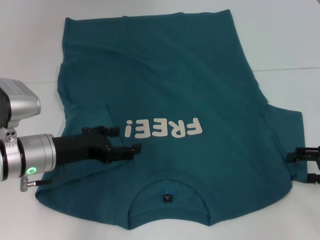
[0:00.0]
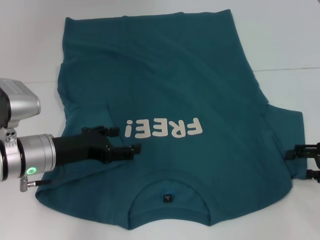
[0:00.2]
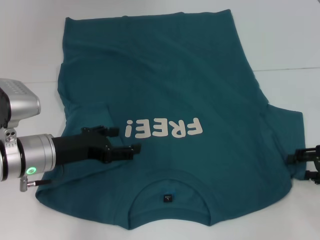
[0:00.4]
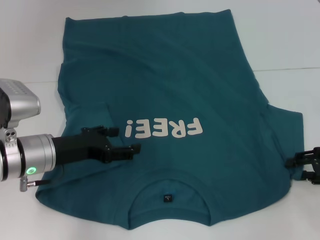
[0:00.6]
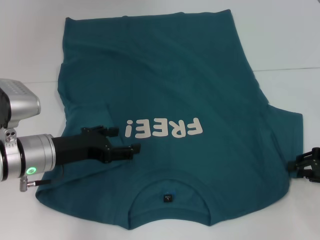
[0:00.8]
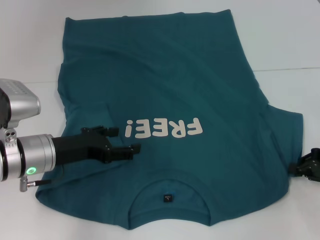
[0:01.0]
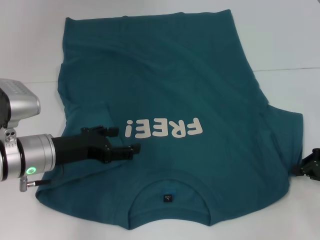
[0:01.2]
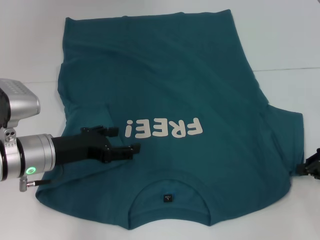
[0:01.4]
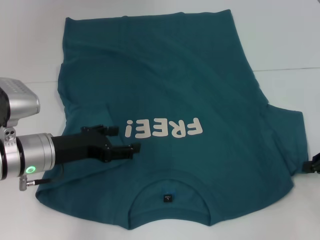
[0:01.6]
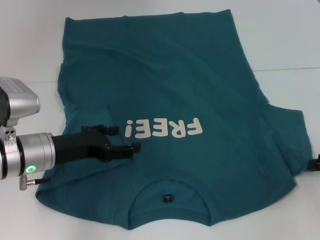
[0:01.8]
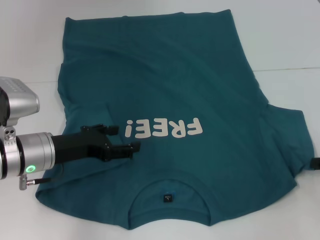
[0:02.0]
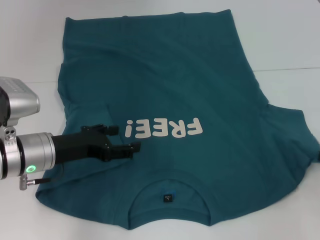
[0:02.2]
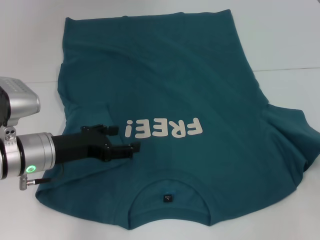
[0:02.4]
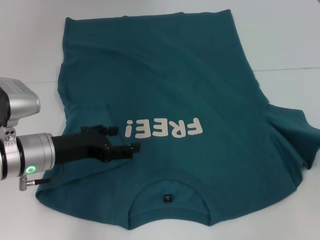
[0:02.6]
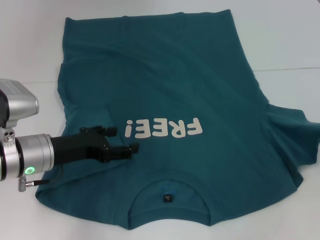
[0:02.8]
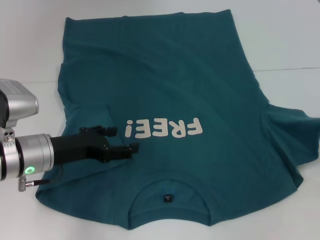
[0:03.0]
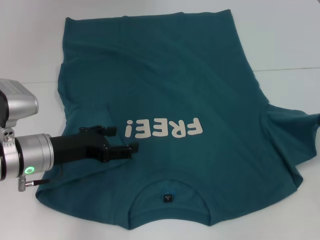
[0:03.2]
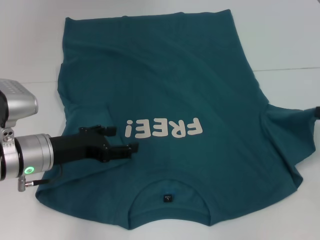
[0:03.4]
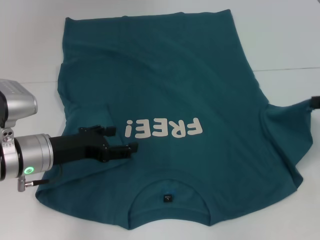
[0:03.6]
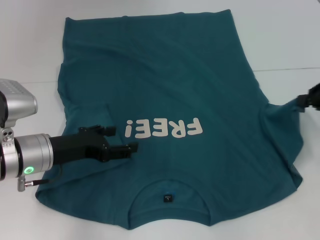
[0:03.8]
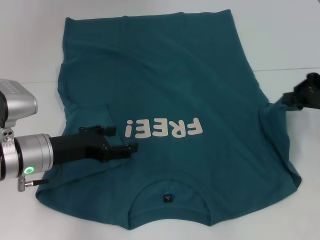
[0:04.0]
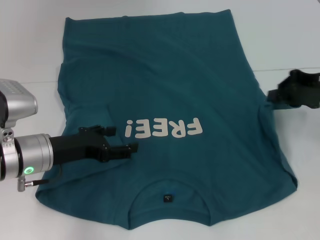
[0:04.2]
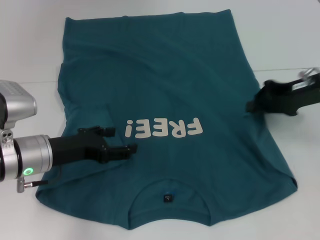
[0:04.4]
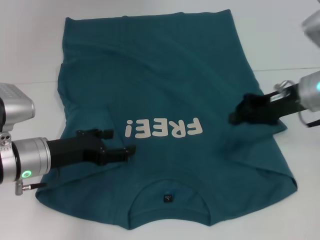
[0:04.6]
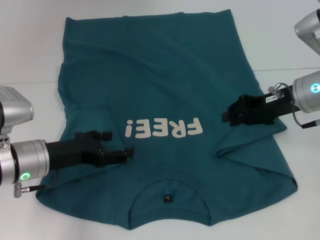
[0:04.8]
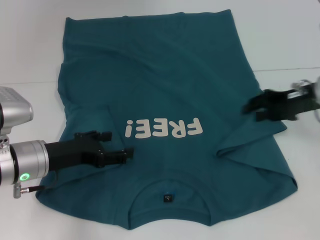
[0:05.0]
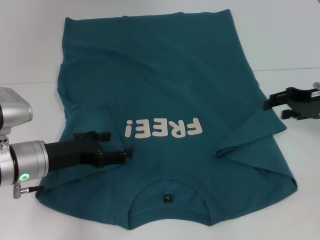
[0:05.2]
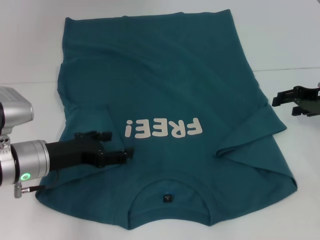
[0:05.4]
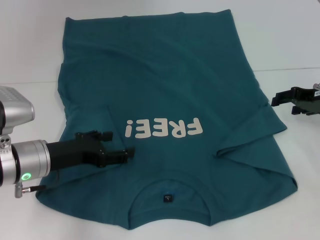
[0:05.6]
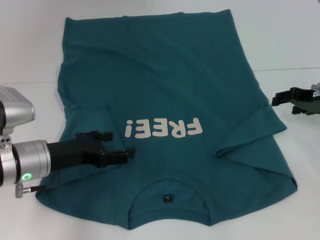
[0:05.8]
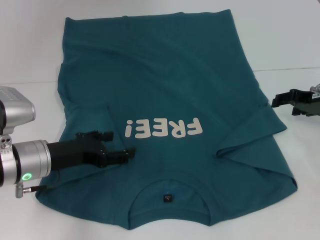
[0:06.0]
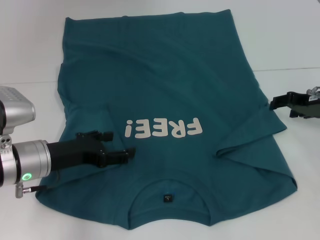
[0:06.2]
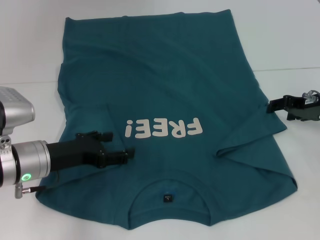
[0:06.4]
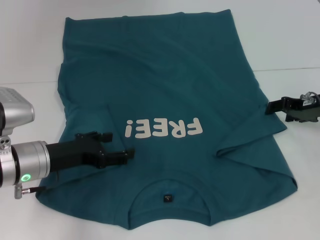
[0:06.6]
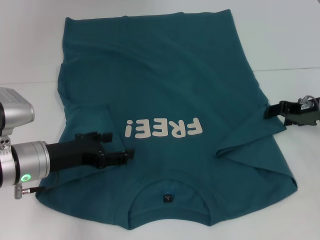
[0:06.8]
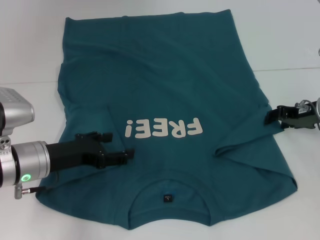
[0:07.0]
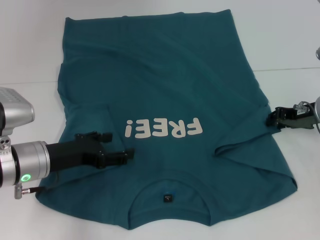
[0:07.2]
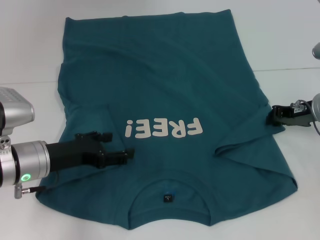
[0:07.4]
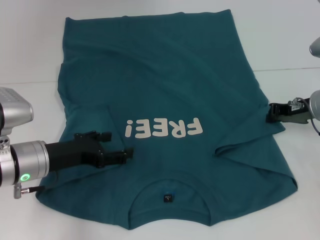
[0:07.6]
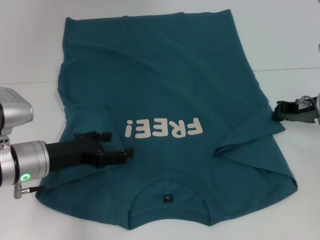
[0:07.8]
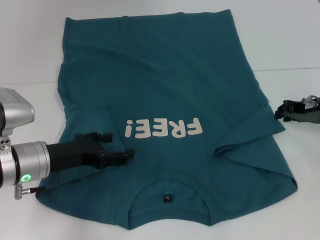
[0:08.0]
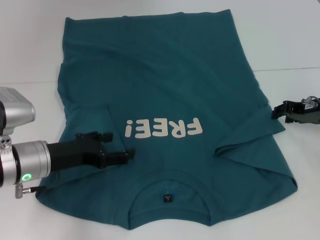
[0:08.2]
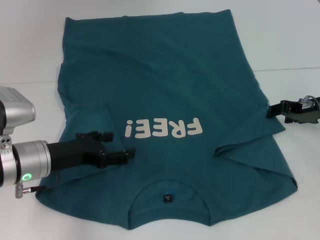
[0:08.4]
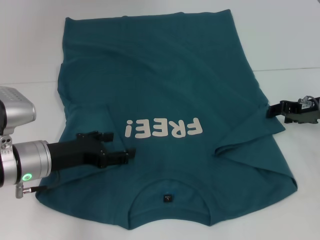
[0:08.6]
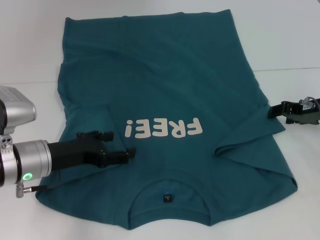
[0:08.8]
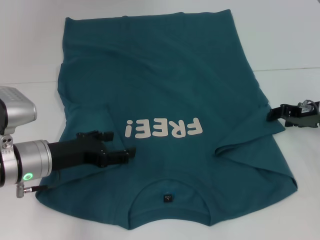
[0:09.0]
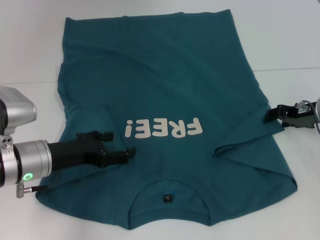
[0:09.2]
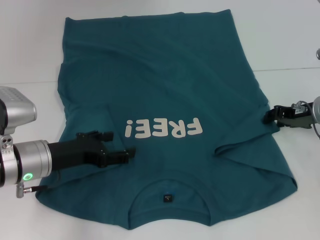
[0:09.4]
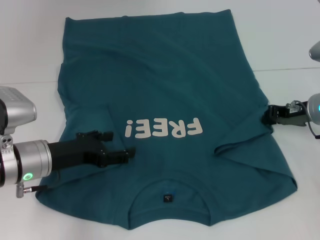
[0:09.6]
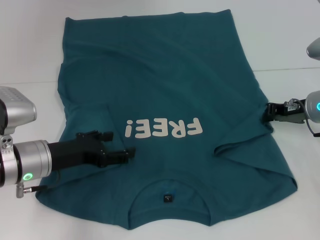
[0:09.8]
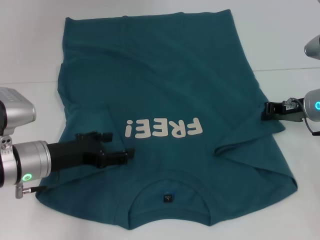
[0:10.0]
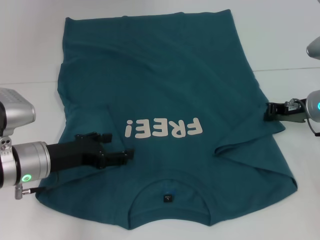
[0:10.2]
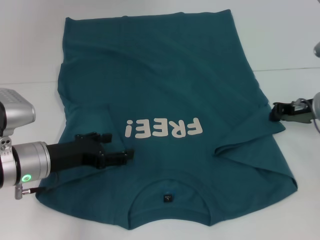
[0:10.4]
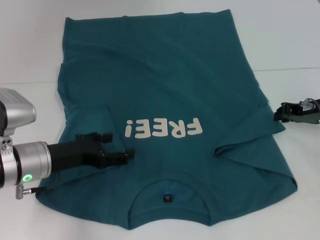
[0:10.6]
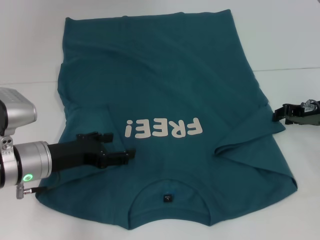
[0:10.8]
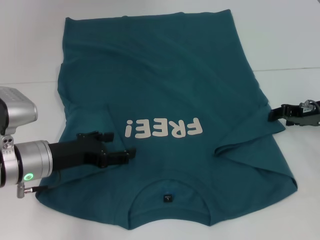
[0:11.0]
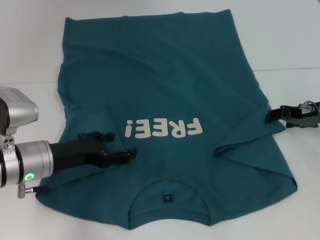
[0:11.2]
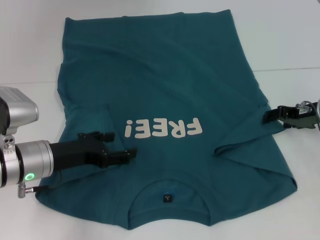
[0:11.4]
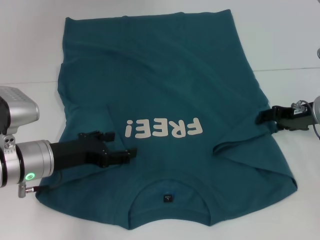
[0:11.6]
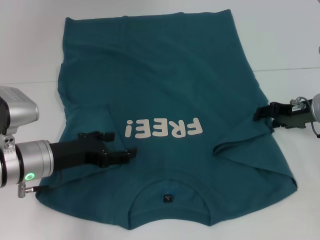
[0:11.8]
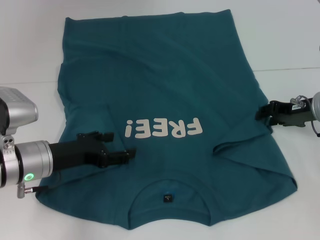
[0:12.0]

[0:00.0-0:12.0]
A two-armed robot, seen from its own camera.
0:00.0 to 0:01.6: The right gripper closes.
0:01.6 to 0:03.0: The right gripper heads upward, covering about 5 cm.
0:03.0 to 0:04.4: The right gripper travels to the left and forward by some 15 cm.
0:04.4 to 0:06.0: The right gripper heads downward, covering about 5 cm, and opens its fingers.
0:06.0 to 0:07.6: The right gripper closes its fingers.
0:07.6 to 0:09.0: The right gripper opens up.
0:09.0 to 0:10.4: The right gripper closes up.
0:10.4 to 0:12.0: The right gripper opens.

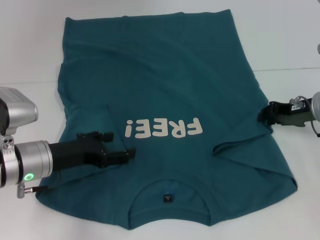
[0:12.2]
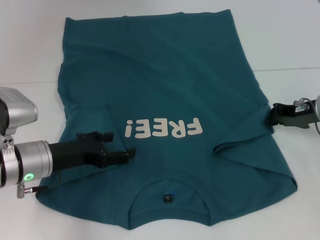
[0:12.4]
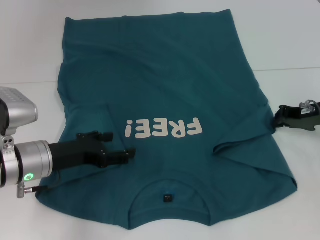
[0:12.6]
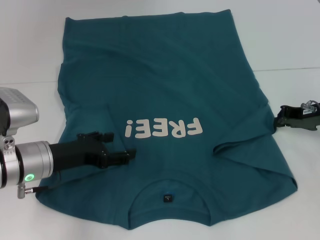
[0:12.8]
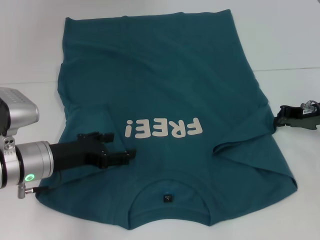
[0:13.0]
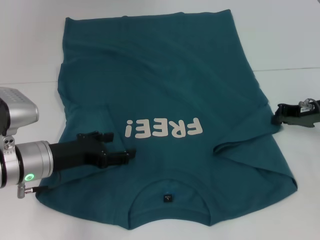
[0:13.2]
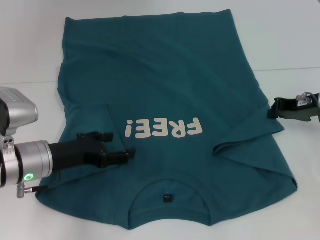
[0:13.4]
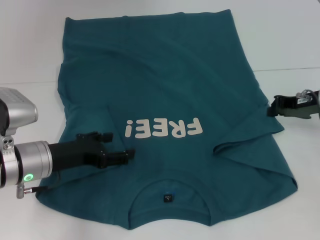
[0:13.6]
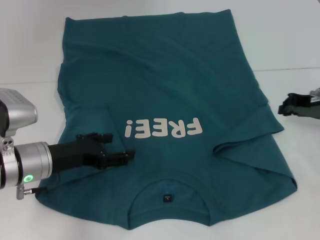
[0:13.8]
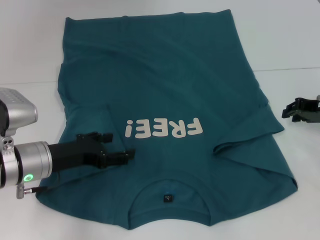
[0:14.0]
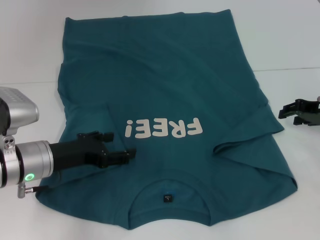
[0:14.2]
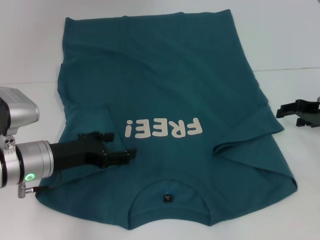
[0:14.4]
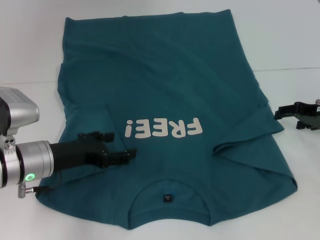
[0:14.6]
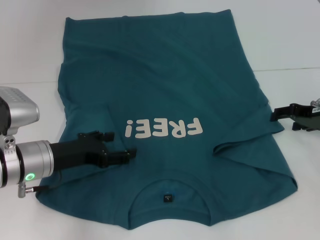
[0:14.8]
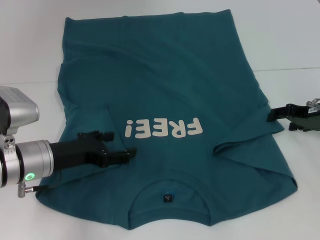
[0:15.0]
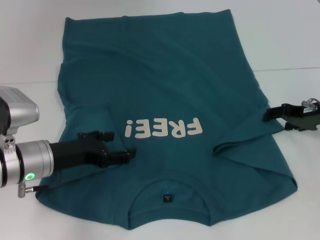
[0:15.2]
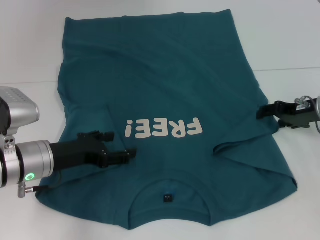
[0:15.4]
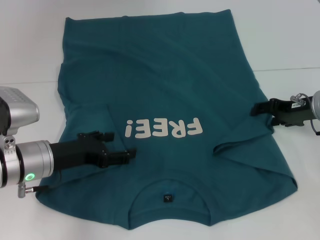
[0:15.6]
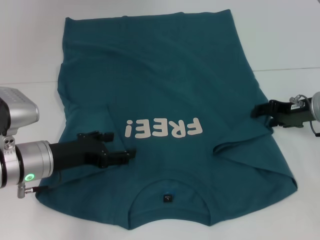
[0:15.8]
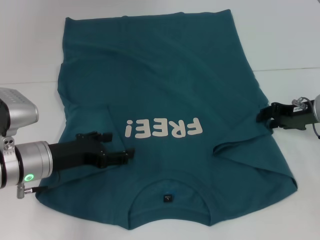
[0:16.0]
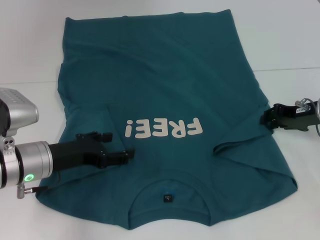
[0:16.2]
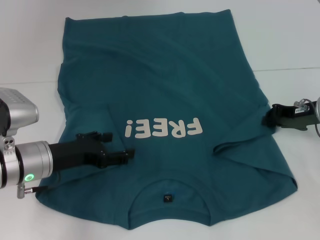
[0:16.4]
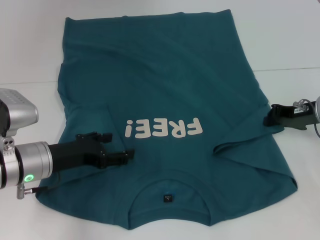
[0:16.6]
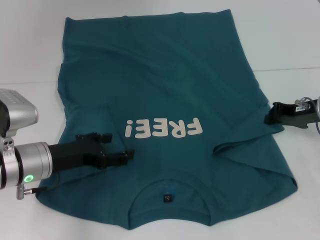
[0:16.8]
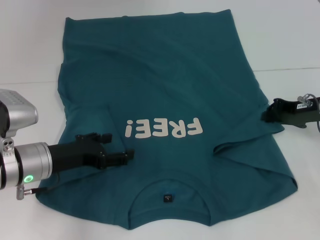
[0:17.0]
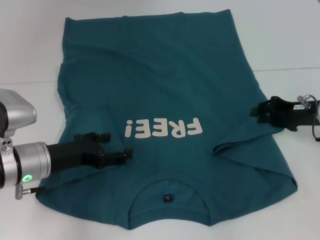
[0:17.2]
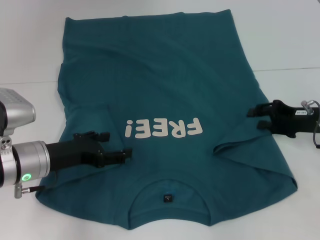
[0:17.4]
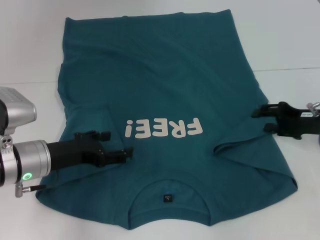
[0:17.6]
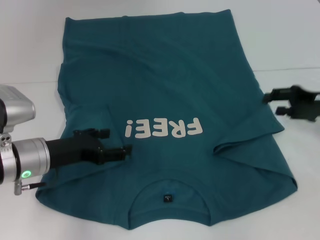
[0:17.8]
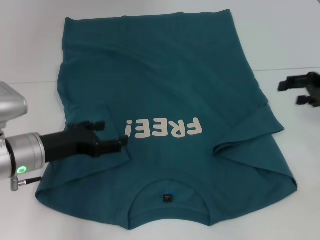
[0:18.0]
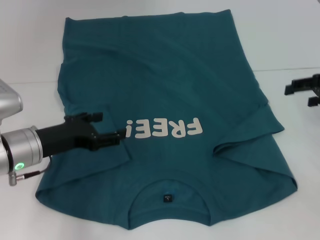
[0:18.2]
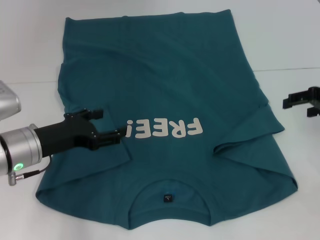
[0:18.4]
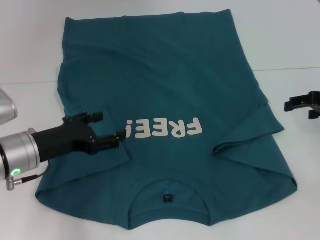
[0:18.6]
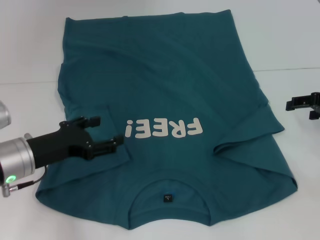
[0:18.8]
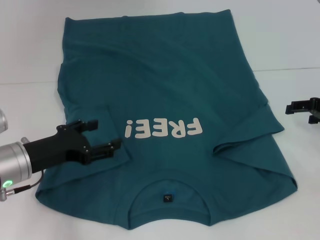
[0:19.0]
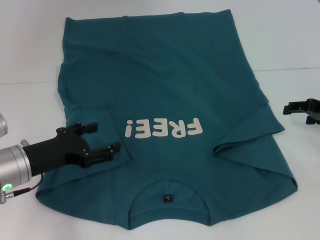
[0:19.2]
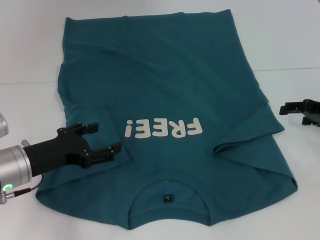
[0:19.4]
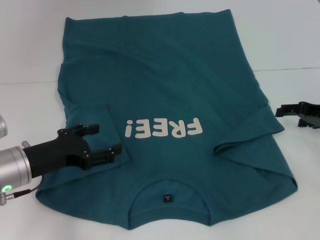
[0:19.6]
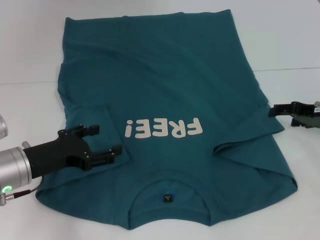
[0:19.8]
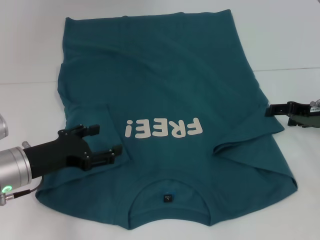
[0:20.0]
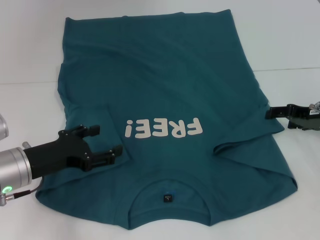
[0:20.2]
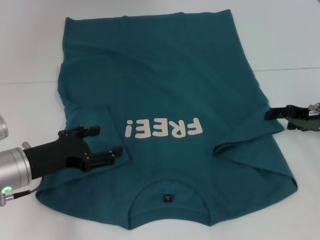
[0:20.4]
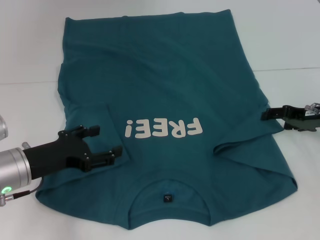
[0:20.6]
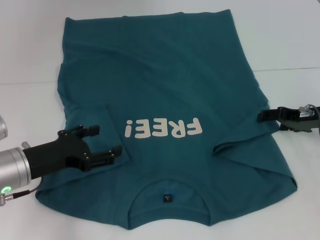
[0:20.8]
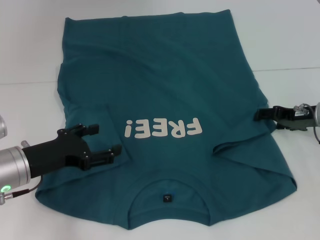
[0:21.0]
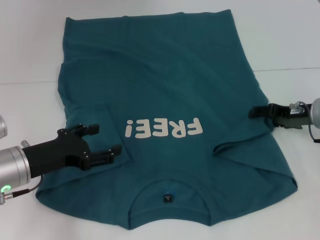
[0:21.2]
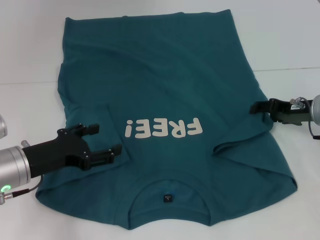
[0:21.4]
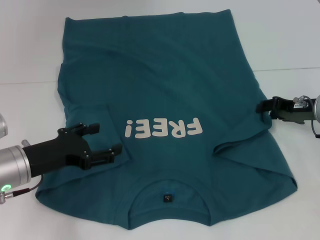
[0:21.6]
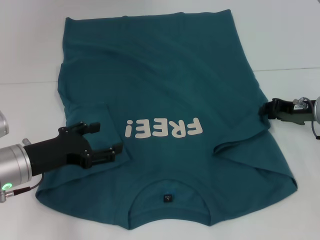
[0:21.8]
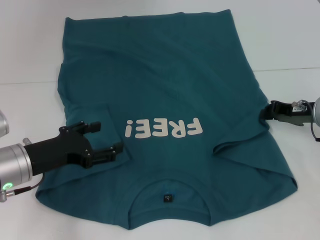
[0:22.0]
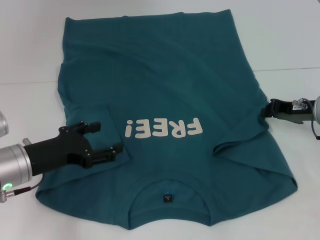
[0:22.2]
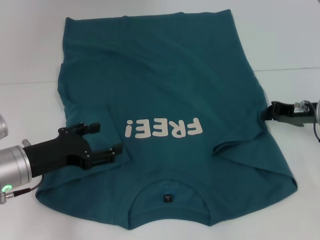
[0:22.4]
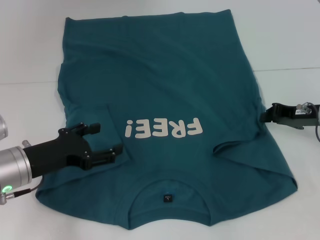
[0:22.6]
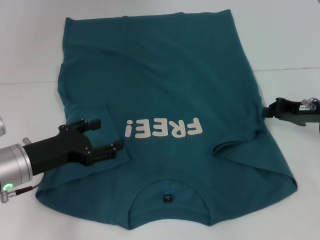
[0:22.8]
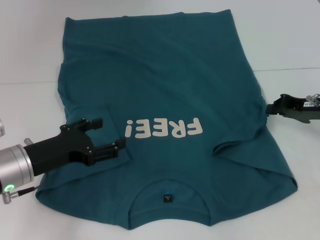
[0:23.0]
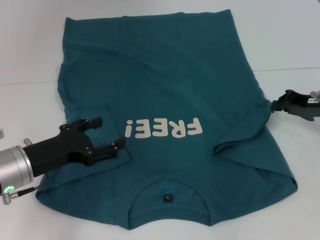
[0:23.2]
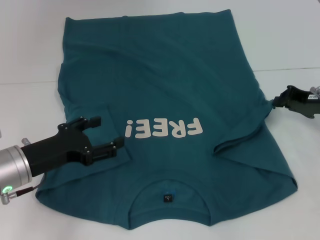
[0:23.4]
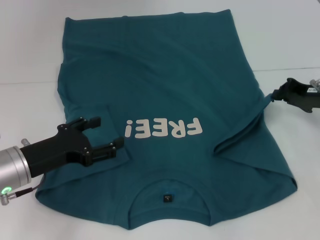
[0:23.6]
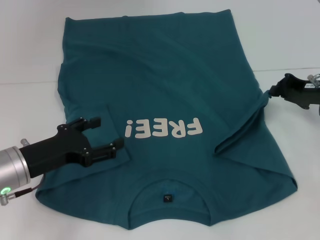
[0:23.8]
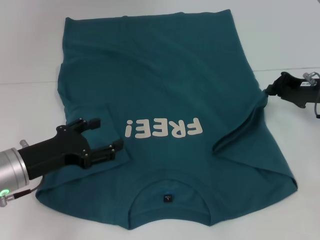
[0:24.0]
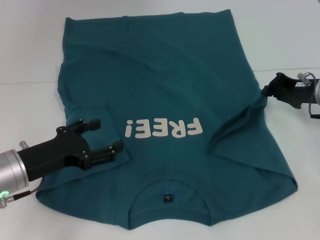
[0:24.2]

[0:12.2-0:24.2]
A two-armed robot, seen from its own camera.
0:12.2 to 0:13.8: The right gripper closes its fingers.
0:13.8 to 0:15.2: The right gripper opens.
0:15.2 to 0:16.6: The right gripper closes its fingers.
0:16.6 to 0:18.2: The right gripper shifts roughly 10 cm upward and to the right, and opens its fingers.
0:18.2 to 0:19.8: The right gripper heads downward, covering about 5 cm.
0:19.8 to 0:21.2: The grippers move only a little.
0:21.2 to 0:22.6: The right gripper closes.
0:22.6 to 0:24.2: The grippers make only small movements.
